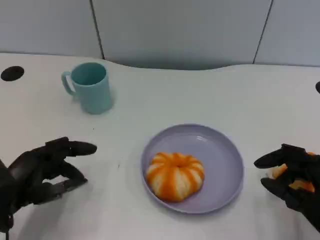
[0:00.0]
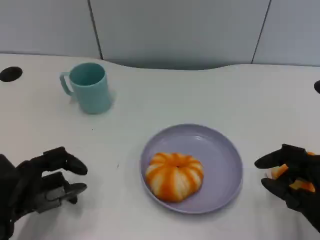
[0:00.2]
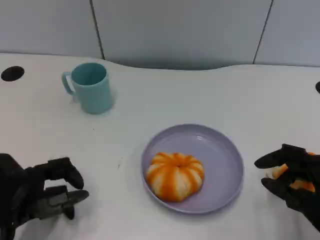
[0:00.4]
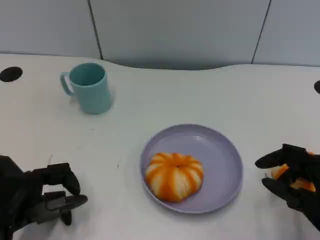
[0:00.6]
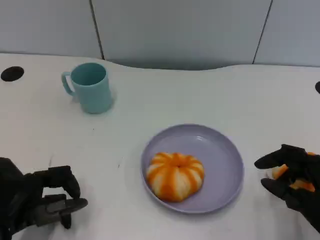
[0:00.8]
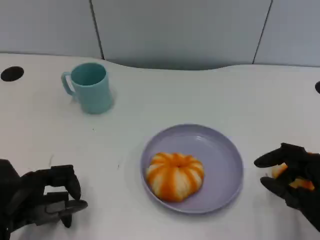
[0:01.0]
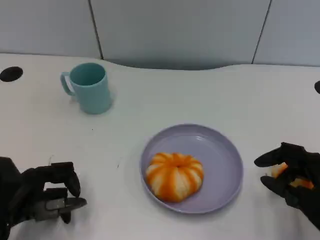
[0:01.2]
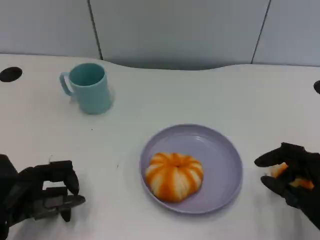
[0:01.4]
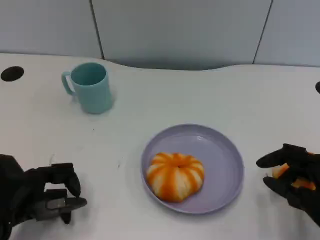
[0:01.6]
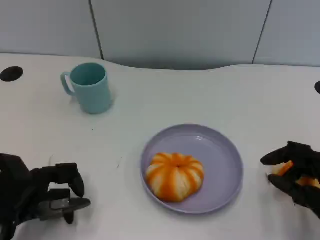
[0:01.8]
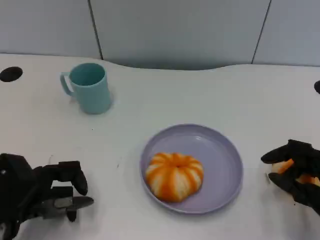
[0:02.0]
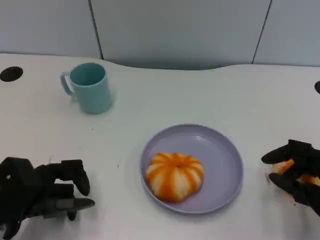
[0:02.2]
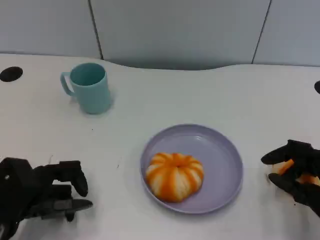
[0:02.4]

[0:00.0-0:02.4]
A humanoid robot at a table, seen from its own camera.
Task of the whole recording: Grasp the bread from the table and place it into the plate.
0:00.0 to 0:02.4: The hands stay close to where they were, moving slightly.

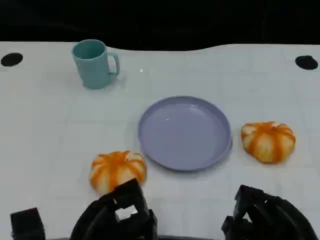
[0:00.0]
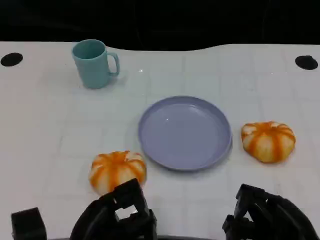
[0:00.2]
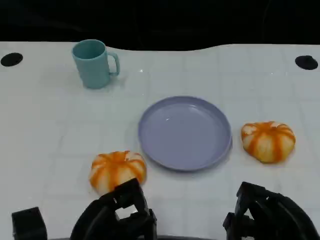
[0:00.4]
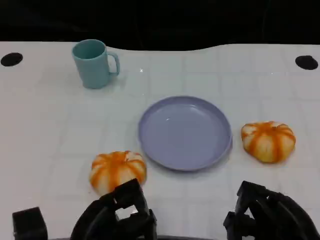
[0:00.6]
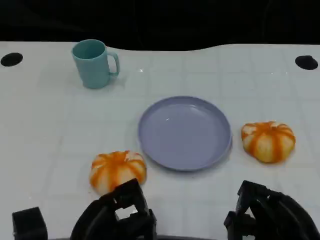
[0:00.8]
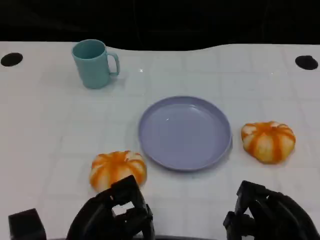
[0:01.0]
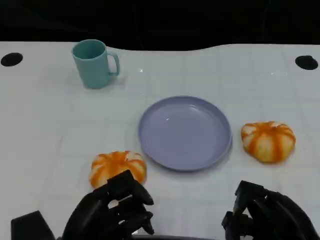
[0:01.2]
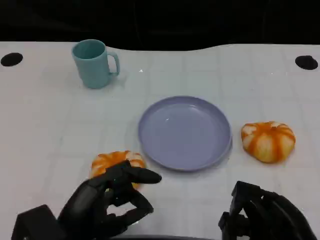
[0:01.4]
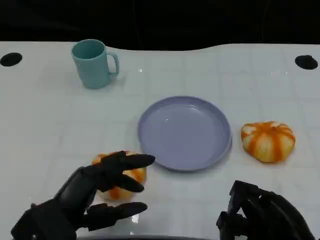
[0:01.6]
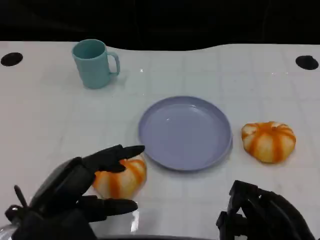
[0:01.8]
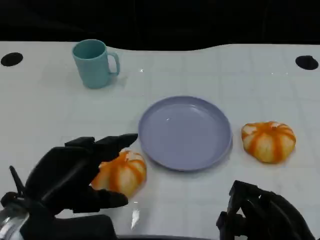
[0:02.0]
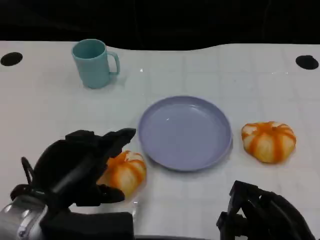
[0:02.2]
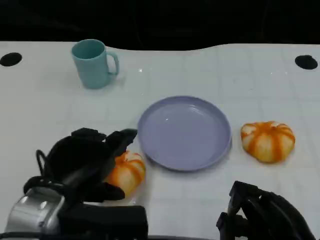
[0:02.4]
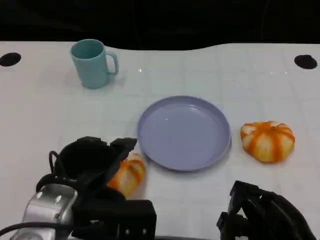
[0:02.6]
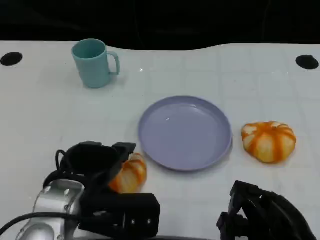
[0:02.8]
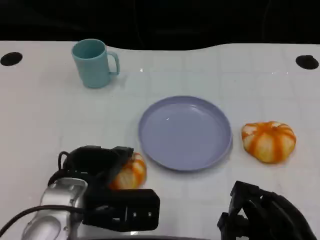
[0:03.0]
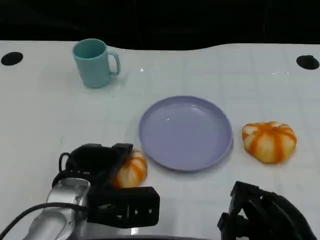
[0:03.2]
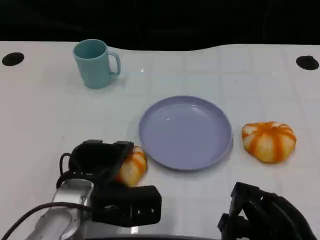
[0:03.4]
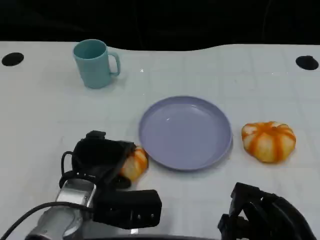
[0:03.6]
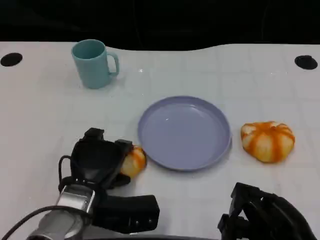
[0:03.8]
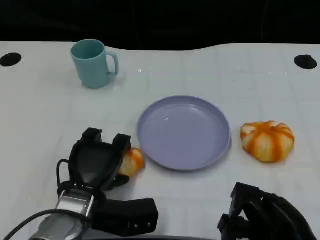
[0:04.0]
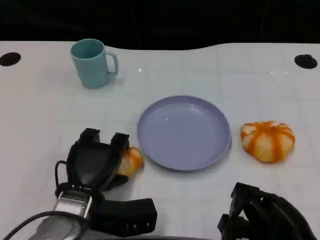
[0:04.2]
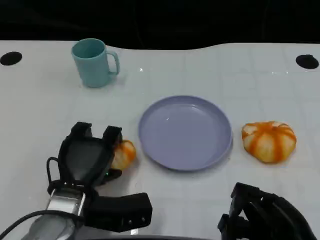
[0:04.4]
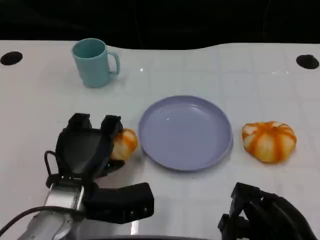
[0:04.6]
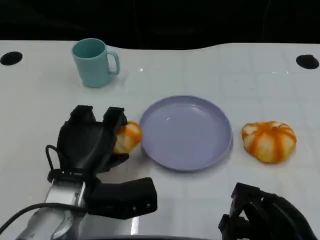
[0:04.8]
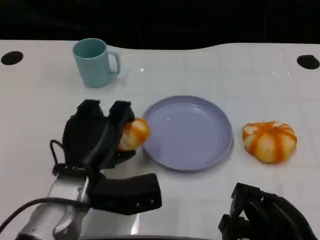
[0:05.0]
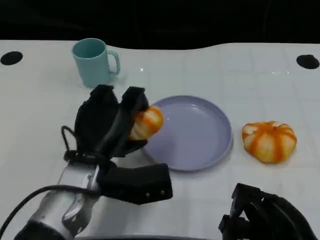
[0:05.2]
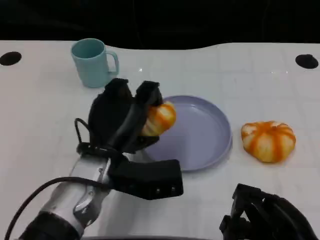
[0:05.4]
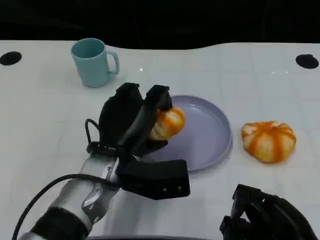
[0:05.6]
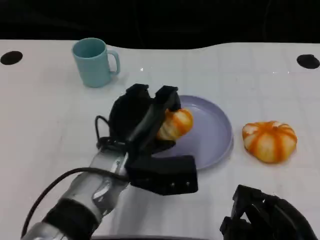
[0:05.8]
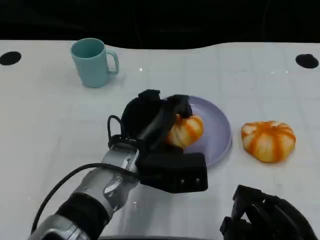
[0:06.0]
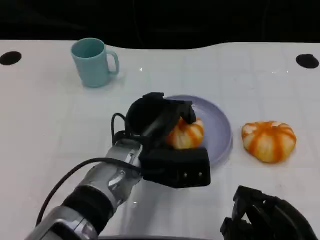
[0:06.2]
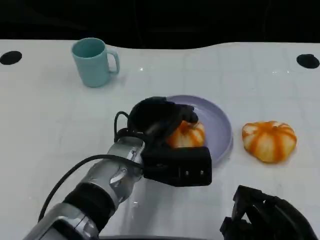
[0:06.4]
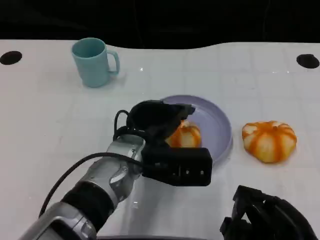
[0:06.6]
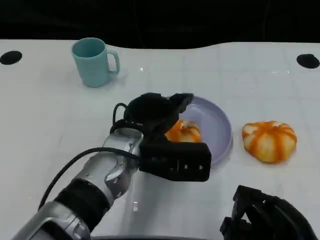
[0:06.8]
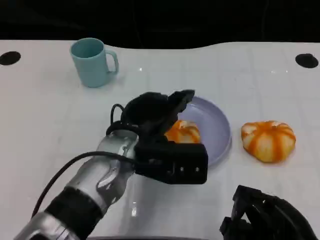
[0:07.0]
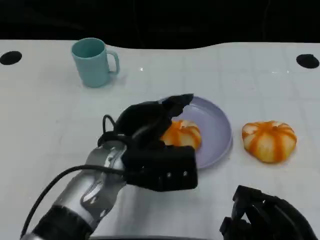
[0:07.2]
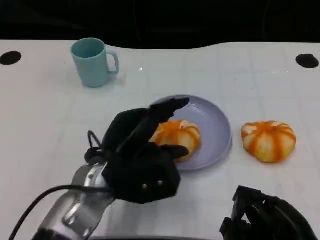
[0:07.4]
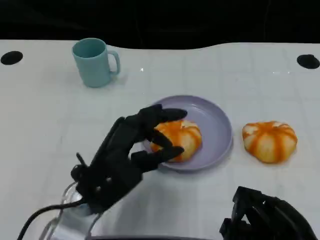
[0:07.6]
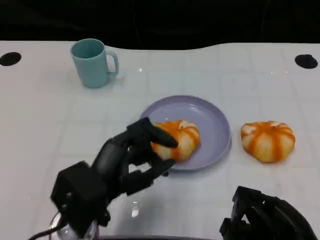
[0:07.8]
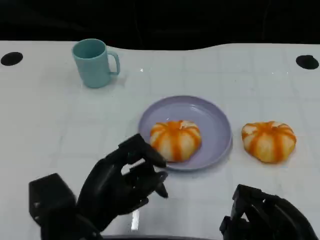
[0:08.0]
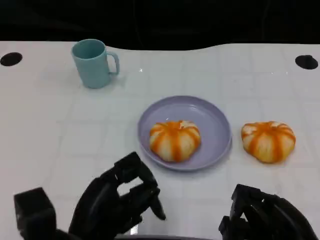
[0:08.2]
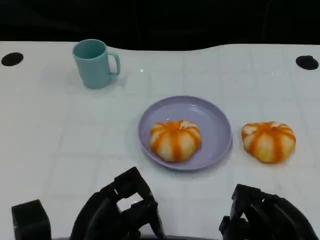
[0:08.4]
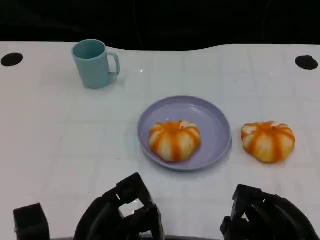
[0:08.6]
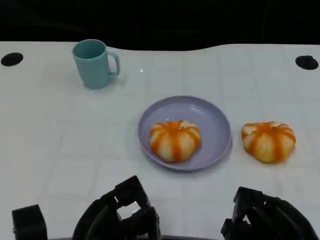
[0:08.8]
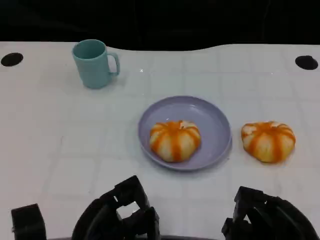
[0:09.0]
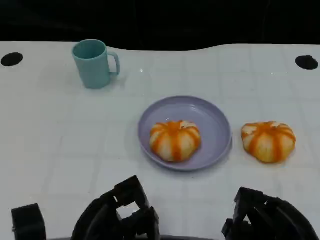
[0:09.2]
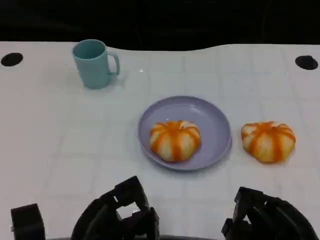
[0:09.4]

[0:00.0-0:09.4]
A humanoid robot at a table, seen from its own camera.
Task of the whole recording: Grasp the bread from the table and place it into the plate.
0:00.0 to 0:01.6: The left hand changes place by about 5 cm.
0:01.6 to 0:03.2: The left hand goes some 10 cm forward and to the right.
0:04.8 to 0:06.2: The left hand heads to the right, covering about 10 cm.
0:06.2 to 0:07.8: The left hand heads backward and to the left, covering some 10 cm.
0:07.8 to 0:09.4: The left hand shifts by roughly 5 cm.

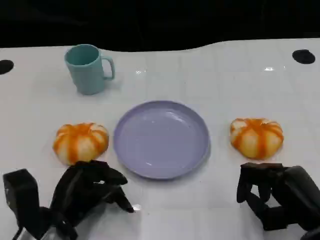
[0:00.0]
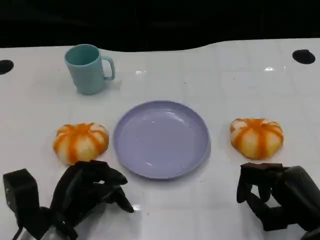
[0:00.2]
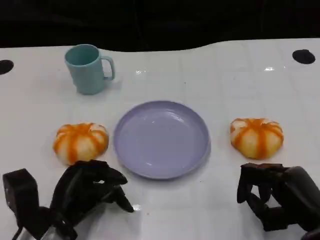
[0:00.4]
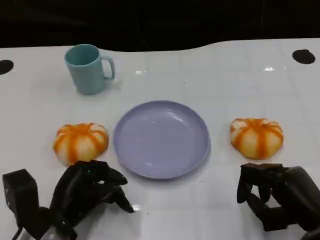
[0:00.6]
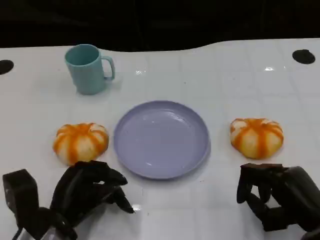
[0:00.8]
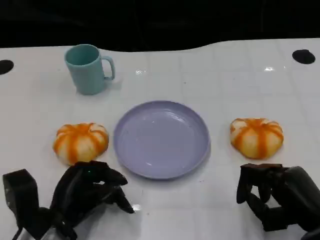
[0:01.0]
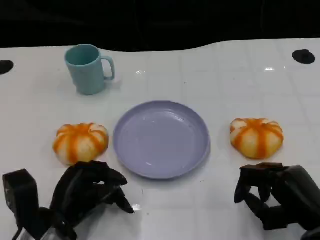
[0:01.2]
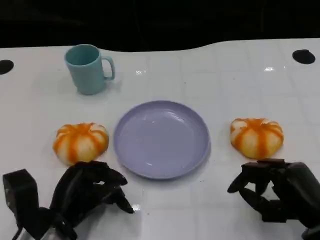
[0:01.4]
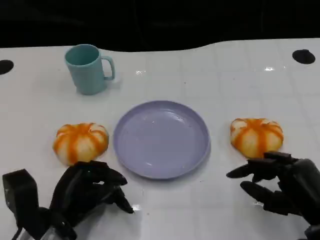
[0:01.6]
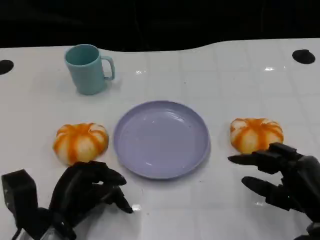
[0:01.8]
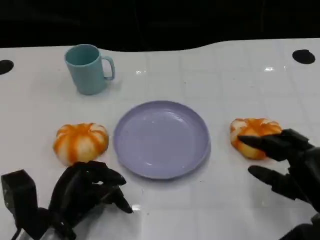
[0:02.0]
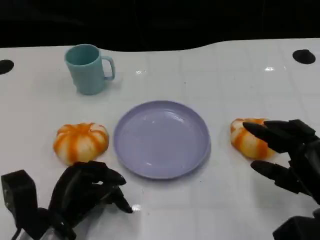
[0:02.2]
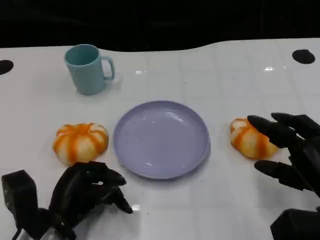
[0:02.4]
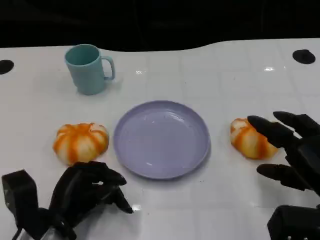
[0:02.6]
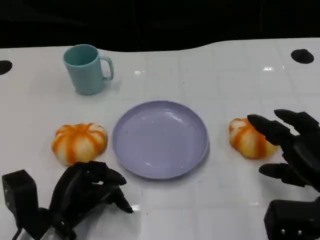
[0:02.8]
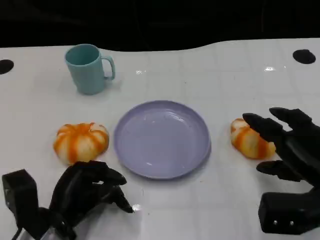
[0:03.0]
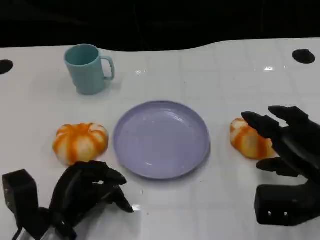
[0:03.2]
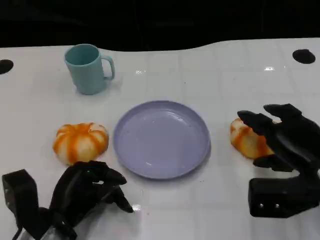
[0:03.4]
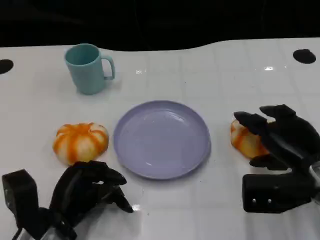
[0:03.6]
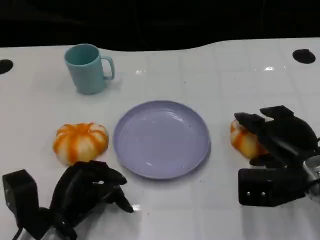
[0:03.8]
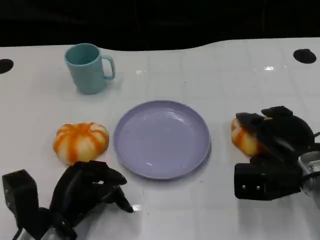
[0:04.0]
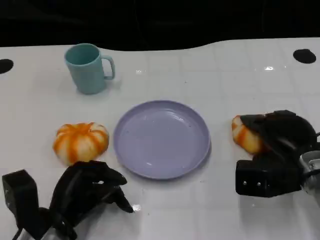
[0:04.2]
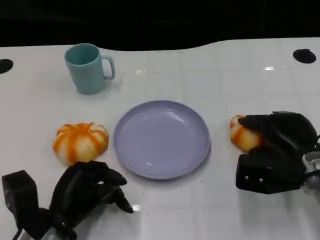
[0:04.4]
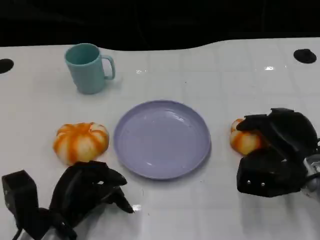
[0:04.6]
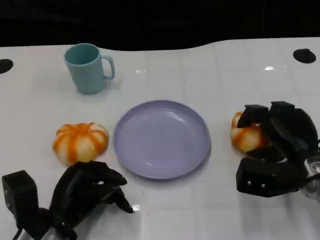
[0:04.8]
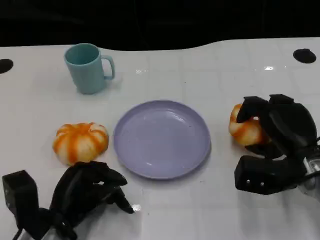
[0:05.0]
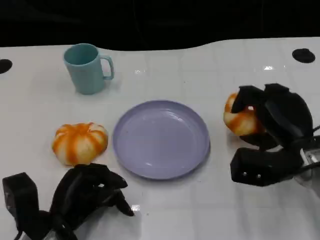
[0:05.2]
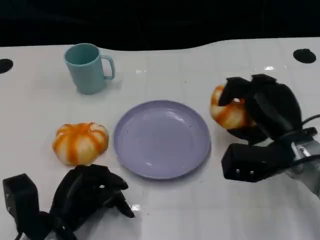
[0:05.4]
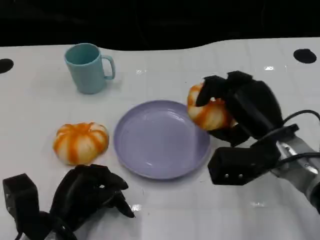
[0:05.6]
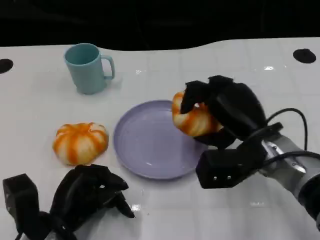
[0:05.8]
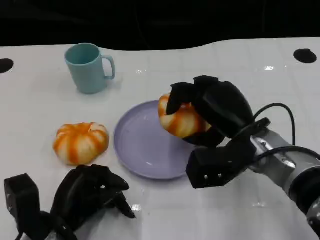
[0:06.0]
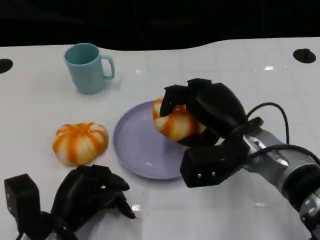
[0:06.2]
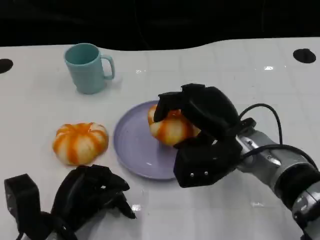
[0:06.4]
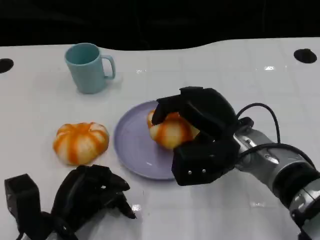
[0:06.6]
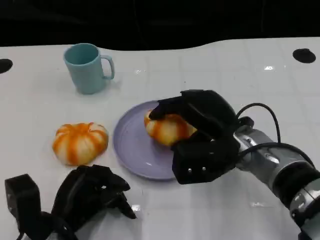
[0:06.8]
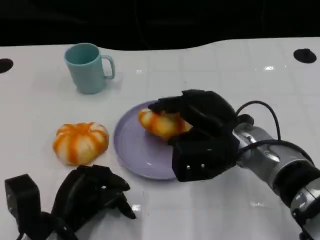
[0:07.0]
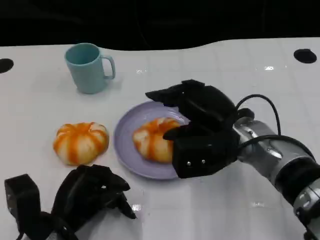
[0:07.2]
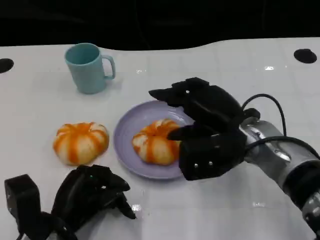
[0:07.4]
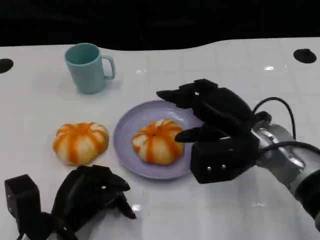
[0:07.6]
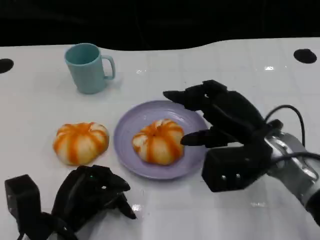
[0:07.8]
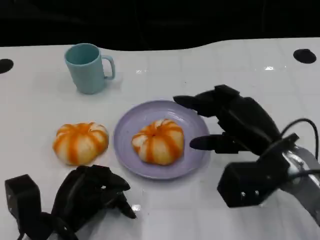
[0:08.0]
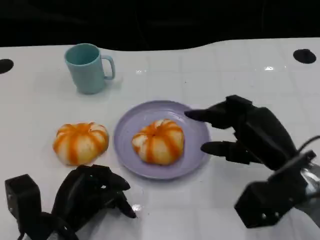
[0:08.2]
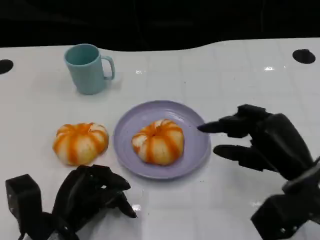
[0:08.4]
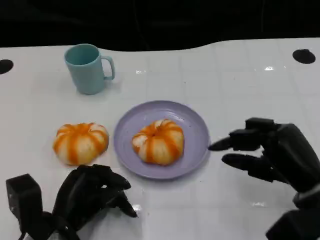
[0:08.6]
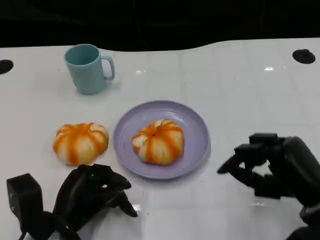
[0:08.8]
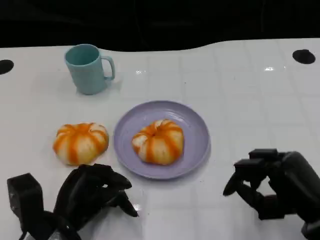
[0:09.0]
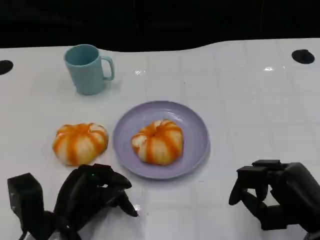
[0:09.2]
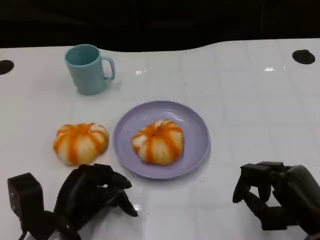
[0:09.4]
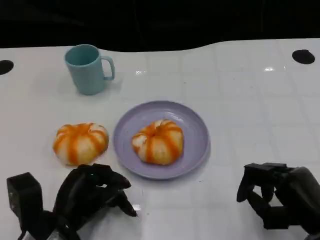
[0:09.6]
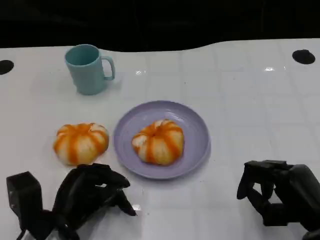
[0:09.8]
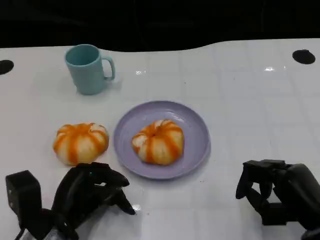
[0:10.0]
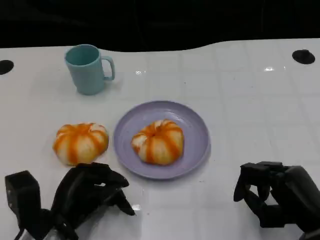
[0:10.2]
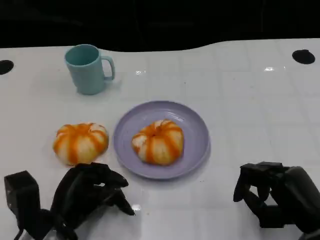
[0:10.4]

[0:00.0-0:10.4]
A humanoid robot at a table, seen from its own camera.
Task of the whole recording: Grasp the bread from the table and place it into the plate.
0:00.0 to 0:01.4: Neither hand changes place.
0:01.4 to 0:03.0: The right hand changes place by approximately 5 cm.
0:03.0 to 0:04.4: The right hand moves forward, roughly 5 cm.
0:04.4 to 0:06.0: The right hand heads to the left, covering about 10 cm.
0:06.0 to 0:07.4: The hands stay close to where they were, moving slightly.
0:07.4 to 0:09.0: The right hand is displaced backward, to the right and downward by roughly 15 cm.
0:09.0 to 0:10.4: The hands stay close to where they were, moving slightly.
